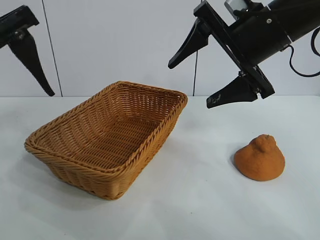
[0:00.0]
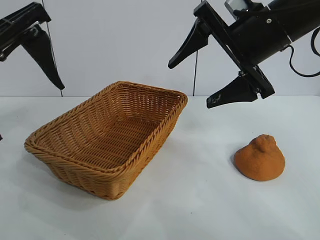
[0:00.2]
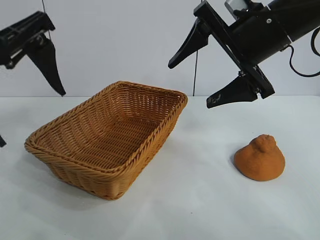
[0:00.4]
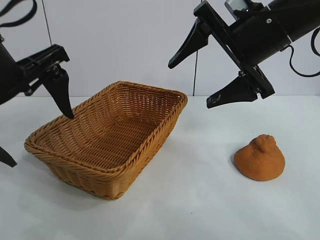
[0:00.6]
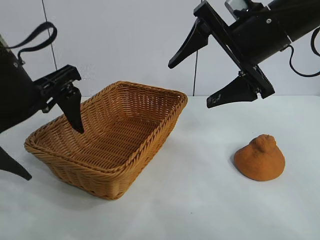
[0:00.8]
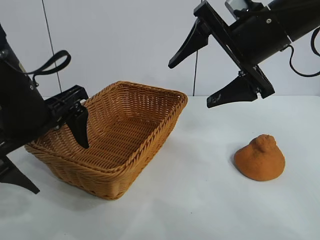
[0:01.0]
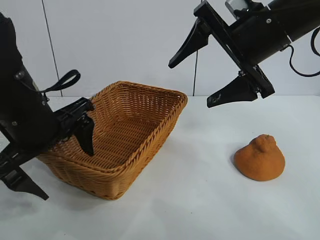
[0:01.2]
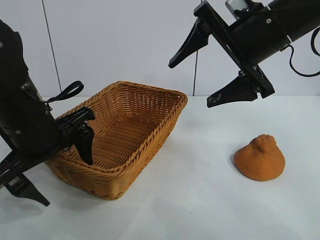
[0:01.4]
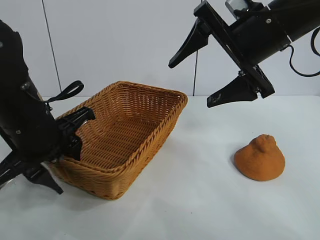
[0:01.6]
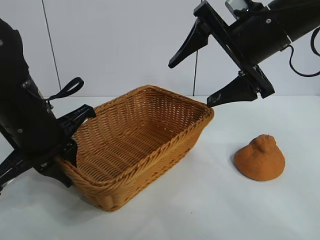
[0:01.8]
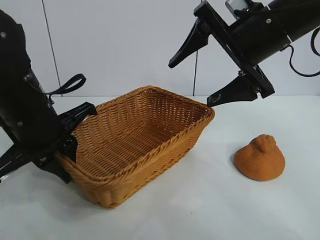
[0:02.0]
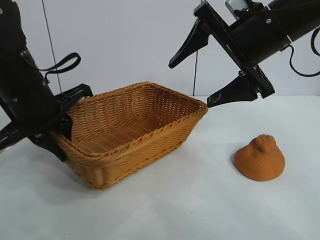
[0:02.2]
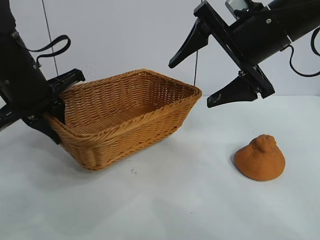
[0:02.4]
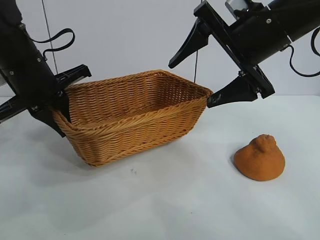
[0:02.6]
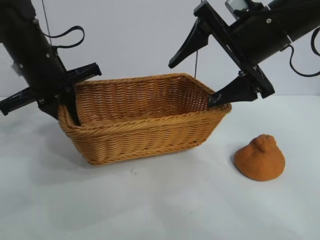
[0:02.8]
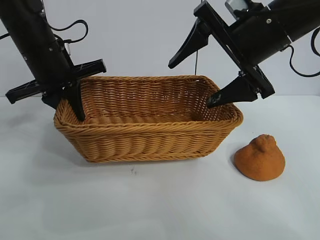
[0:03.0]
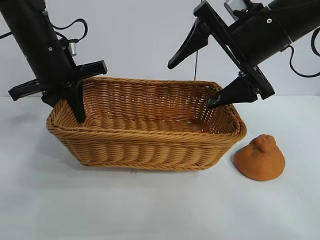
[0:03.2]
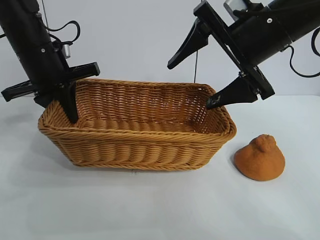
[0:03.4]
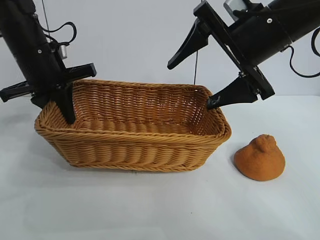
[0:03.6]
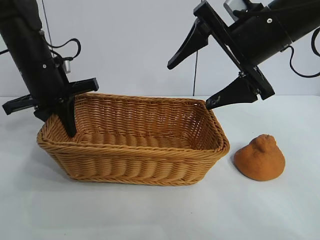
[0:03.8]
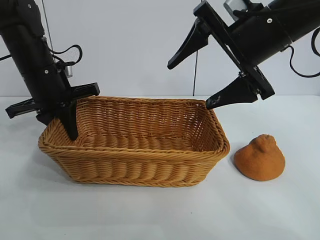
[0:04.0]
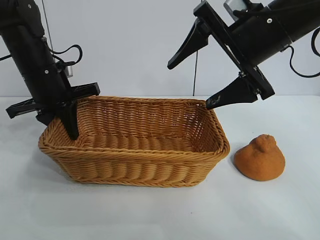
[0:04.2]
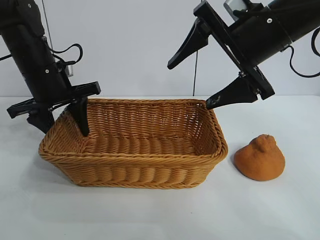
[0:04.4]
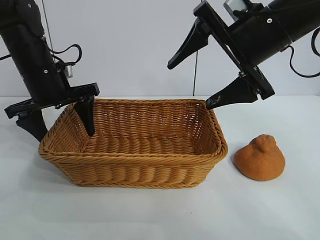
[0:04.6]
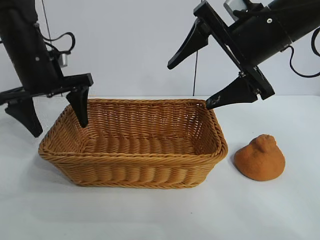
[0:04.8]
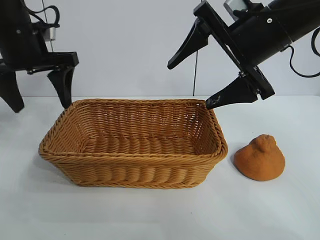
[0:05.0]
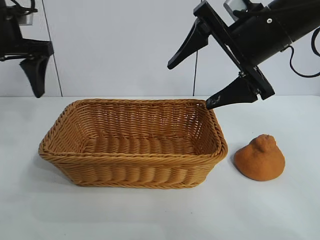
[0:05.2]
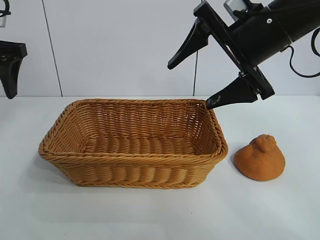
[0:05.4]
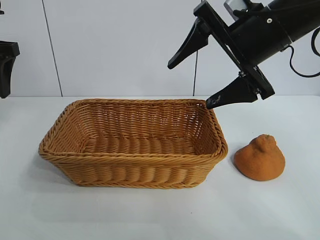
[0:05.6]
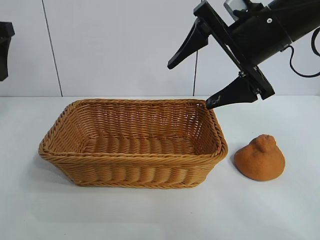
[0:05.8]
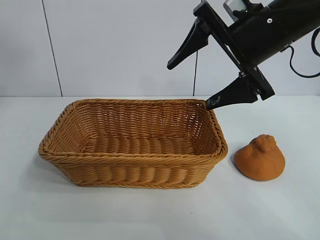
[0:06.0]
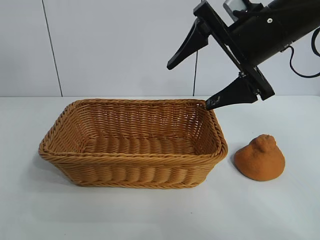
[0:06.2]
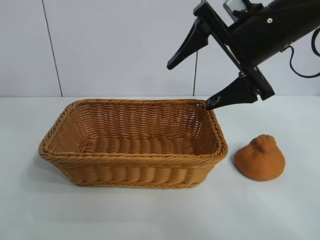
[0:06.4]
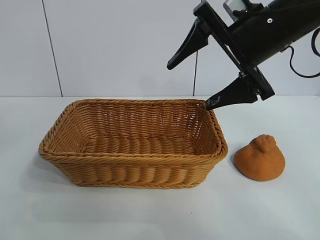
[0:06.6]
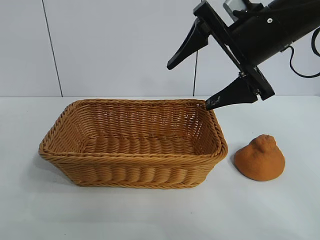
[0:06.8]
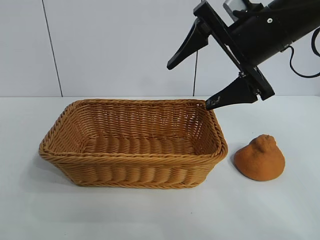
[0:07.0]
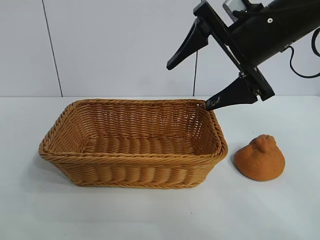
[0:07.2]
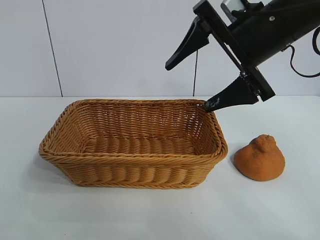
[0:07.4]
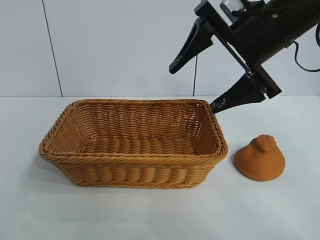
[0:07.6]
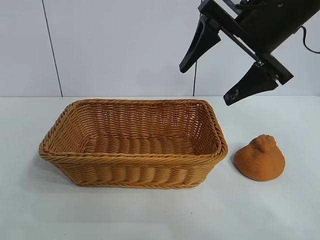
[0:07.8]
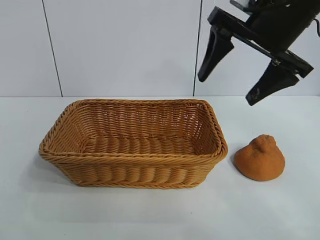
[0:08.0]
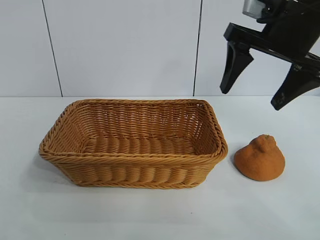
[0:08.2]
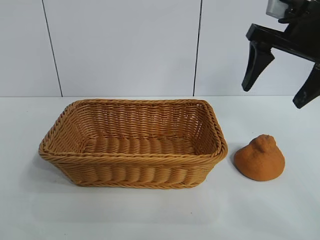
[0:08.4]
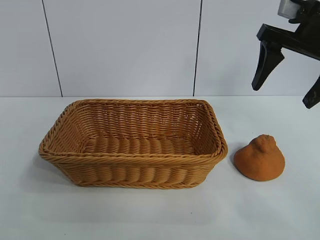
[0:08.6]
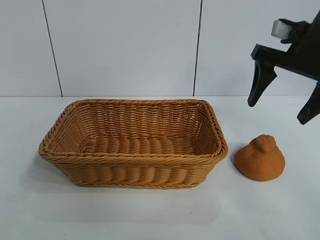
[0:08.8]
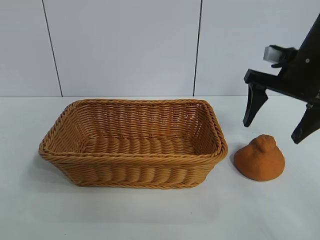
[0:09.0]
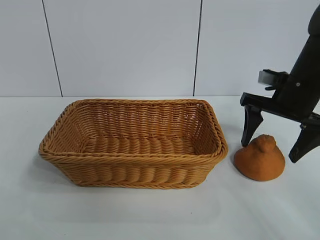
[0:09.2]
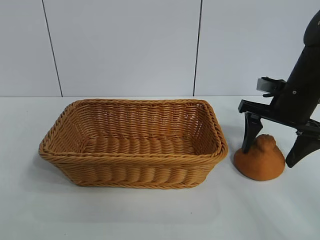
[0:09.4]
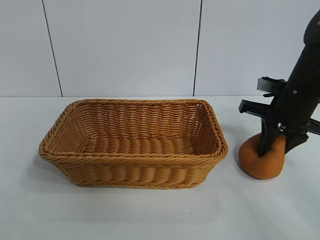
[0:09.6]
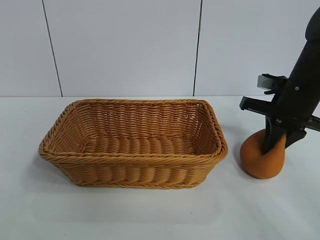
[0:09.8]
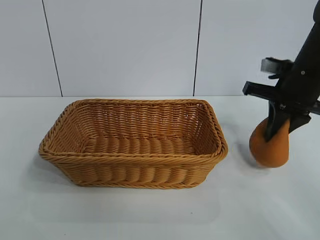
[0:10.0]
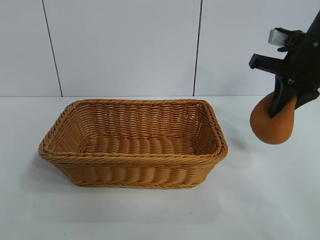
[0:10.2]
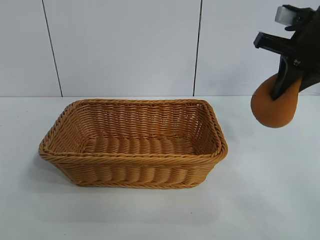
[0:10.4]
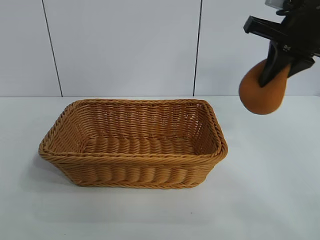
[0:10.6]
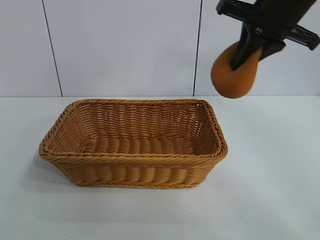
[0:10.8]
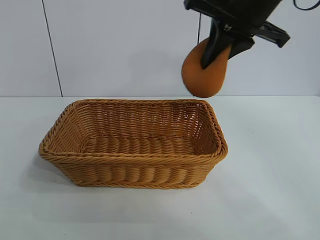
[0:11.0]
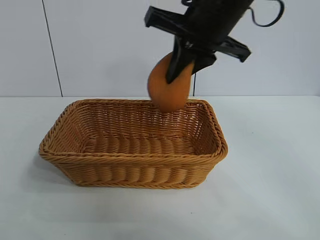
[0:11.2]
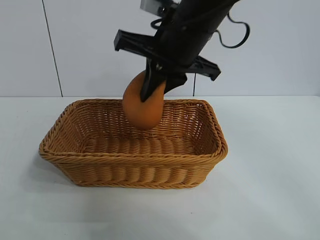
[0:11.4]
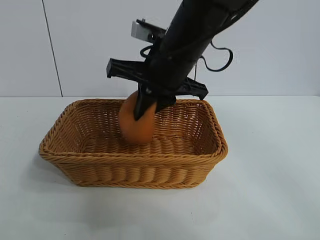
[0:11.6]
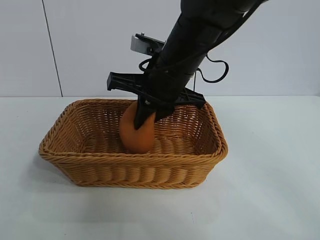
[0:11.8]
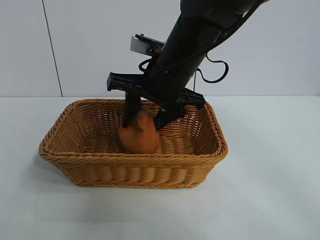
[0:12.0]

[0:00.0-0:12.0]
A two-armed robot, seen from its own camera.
Task of the whole recording: pick up the orange and put it into the basket.
Step, 0:00.0 to 0:01.6: Grasp the basket with left gripper.
Step, 0:01.8 to 0:04.4: Place the basket in the center of view with left gripper.
Step, 0:04.6 to 0:09.8: Grasp the orange with right gripper.

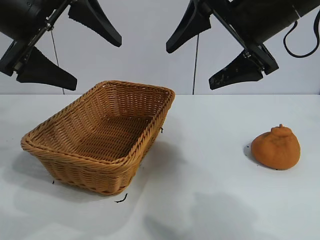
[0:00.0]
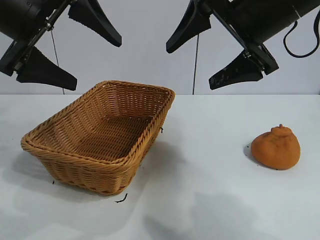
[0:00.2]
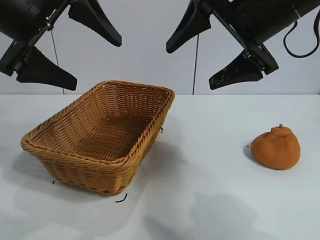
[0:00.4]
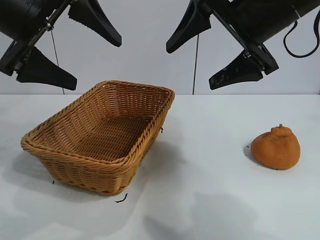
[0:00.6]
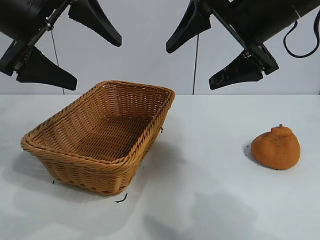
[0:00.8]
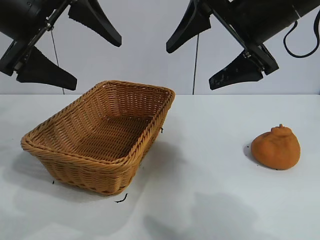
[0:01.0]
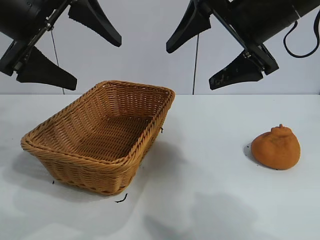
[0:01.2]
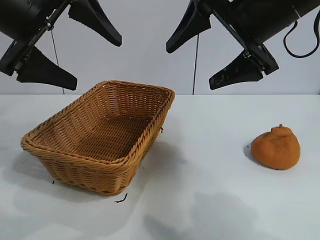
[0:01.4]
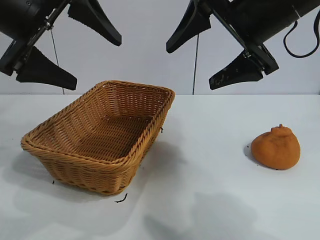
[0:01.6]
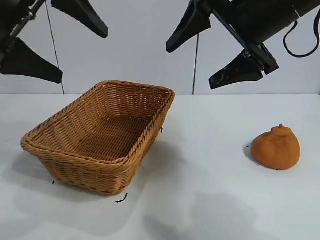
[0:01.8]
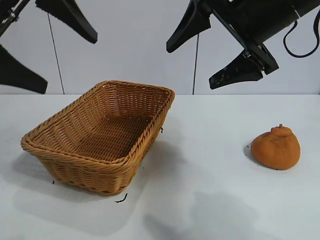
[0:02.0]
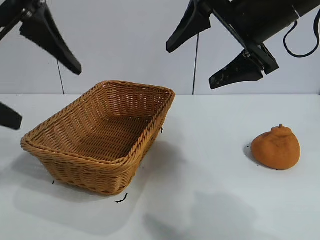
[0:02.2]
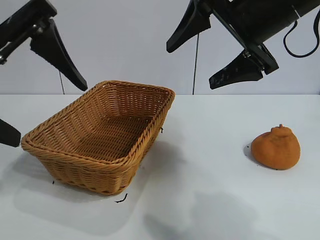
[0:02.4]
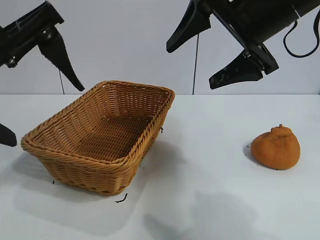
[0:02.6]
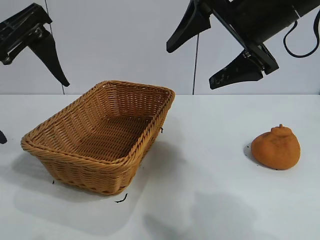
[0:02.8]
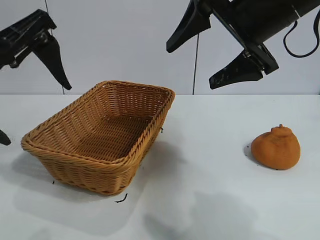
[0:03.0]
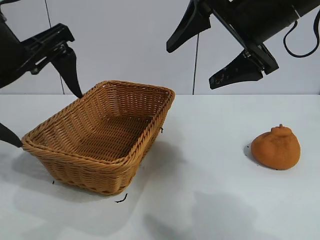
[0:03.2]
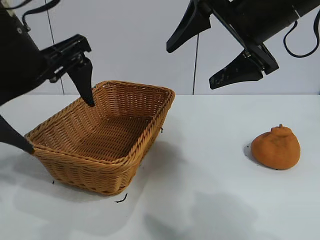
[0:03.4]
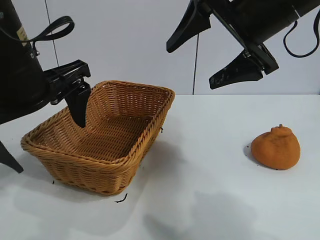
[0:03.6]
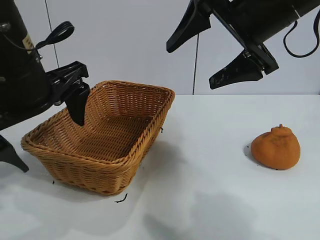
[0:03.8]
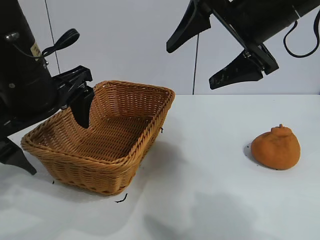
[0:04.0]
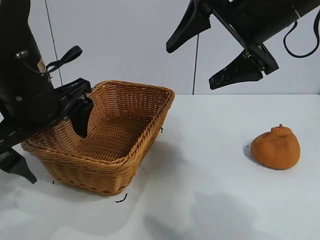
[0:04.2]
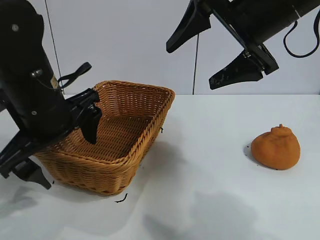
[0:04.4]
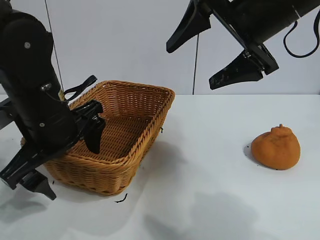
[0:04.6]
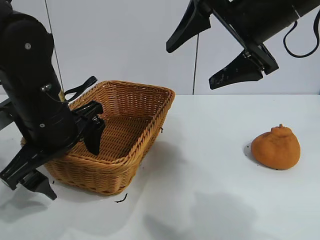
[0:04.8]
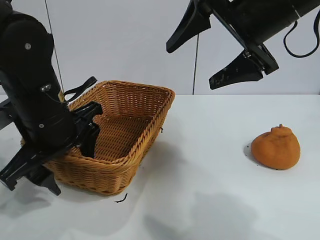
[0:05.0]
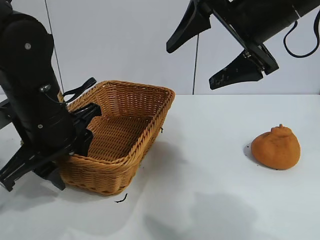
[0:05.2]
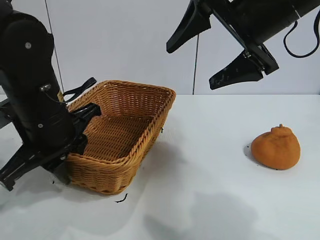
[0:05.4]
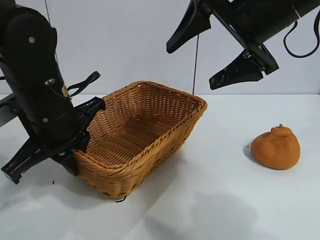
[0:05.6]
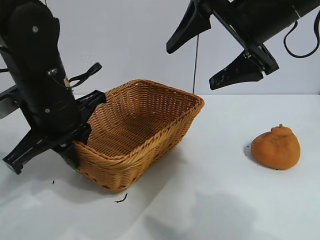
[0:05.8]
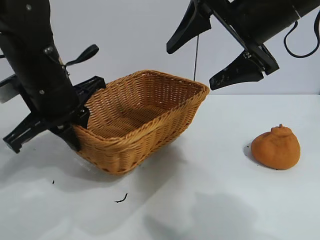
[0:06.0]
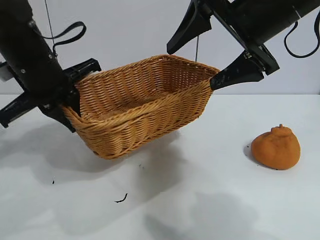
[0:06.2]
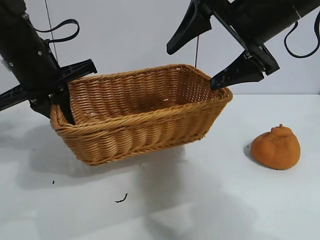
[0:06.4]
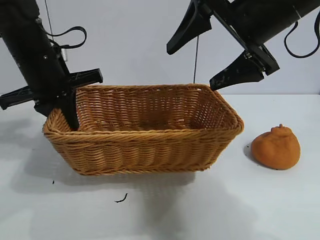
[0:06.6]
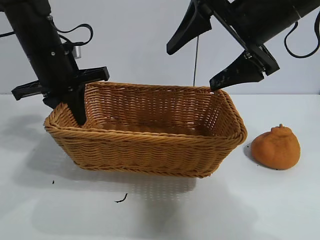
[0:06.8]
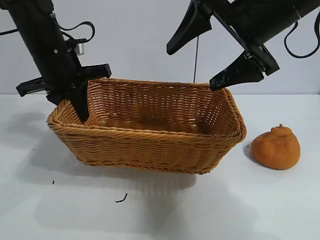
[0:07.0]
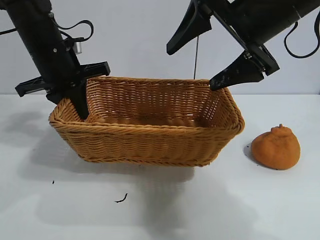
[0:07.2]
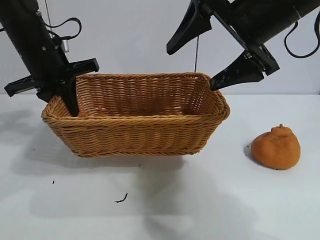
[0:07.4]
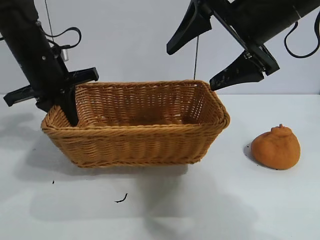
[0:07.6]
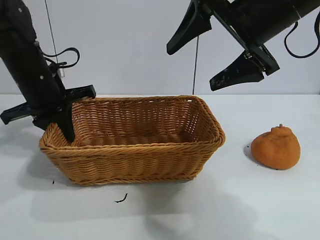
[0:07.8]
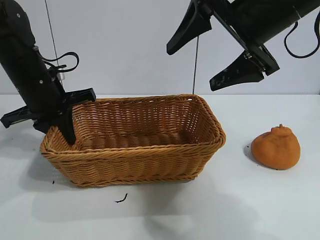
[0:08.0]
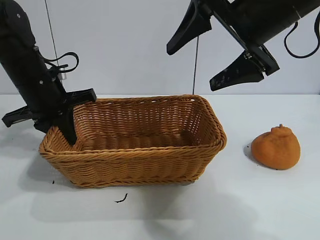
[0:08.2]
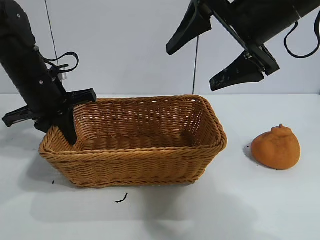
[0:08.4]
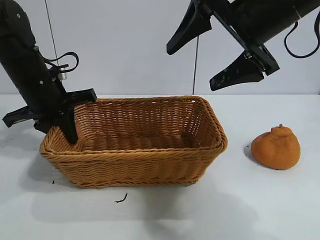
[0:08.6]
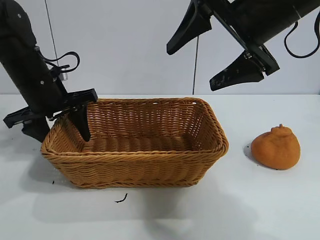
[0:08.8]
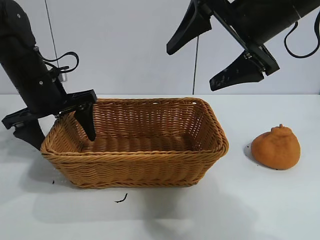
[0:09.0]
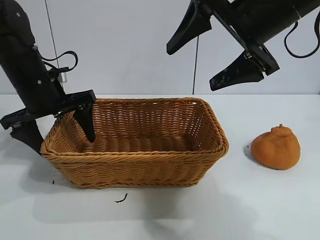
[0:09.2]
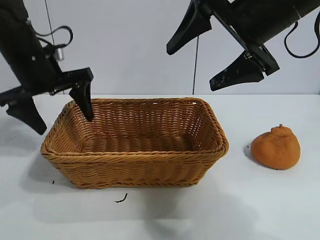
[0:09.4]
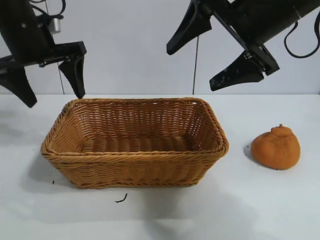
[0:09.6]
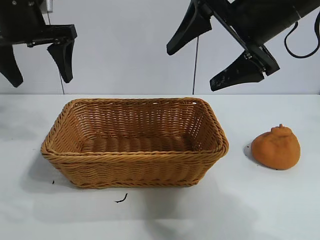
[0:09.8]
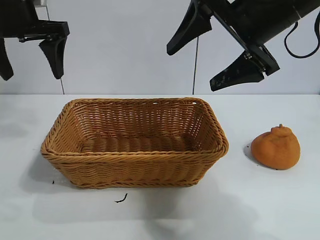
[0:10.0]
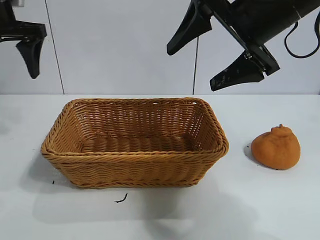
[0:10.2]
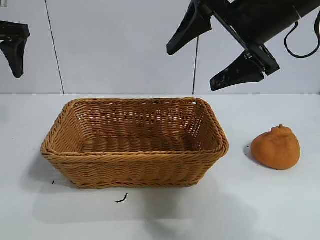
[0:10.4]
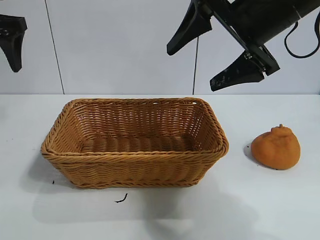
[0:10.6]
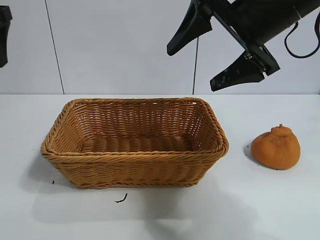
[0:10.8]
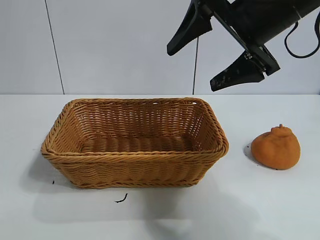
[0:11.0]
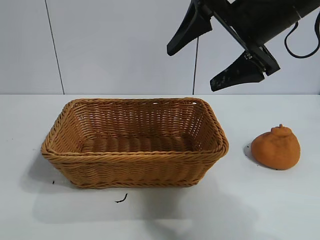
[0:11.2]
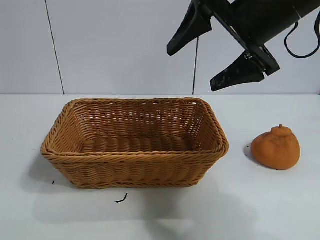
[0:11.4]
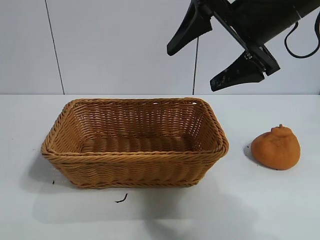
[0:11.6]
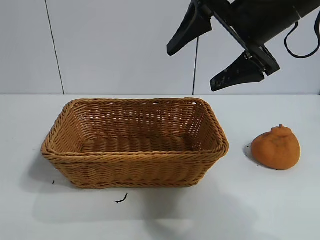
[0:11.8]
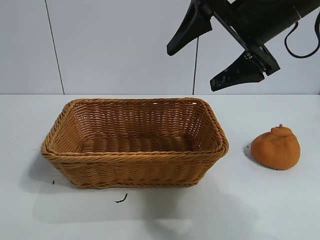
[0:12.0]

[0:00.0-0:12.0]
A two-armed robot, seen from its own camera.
Task of the whole recording: pick up the orange and put it into the basket.
Step, 0:01.6 to 0:05.4: Grasp the basket with left gripper.
Step, 0:05.6 to 0:09.0: Place the basket in the center of view with left gripper.
